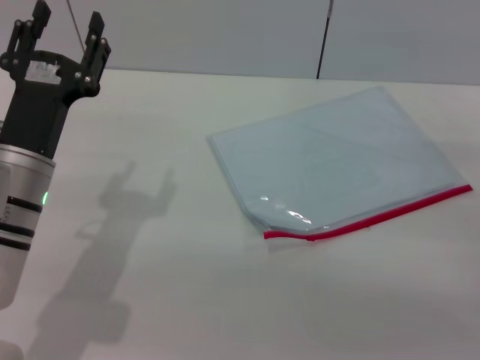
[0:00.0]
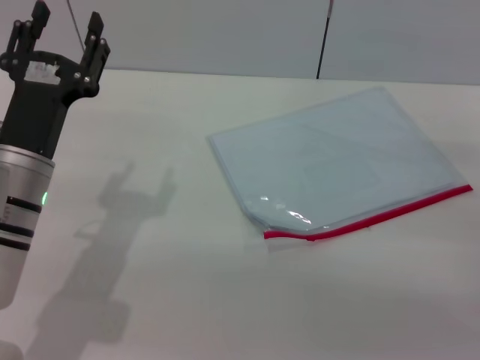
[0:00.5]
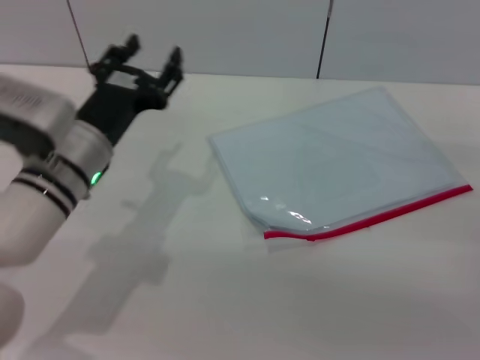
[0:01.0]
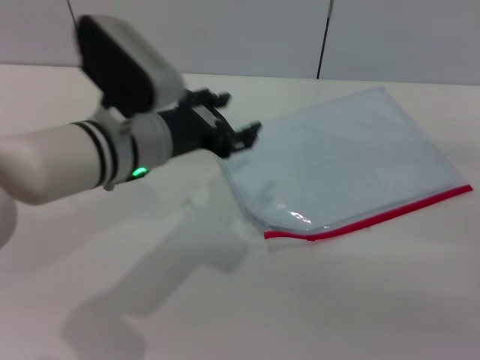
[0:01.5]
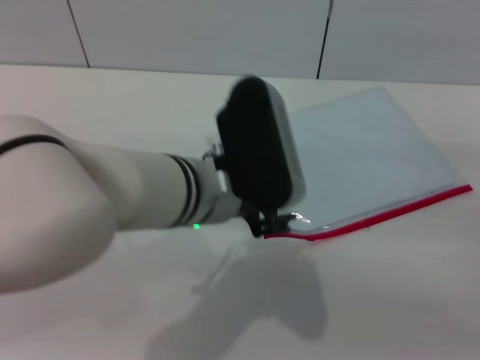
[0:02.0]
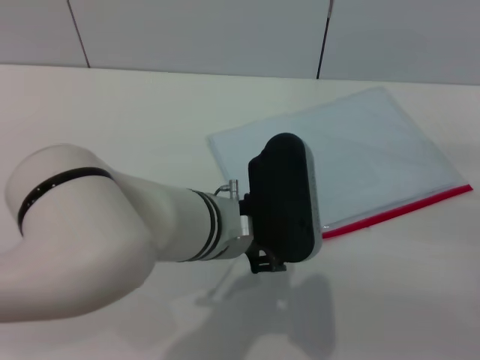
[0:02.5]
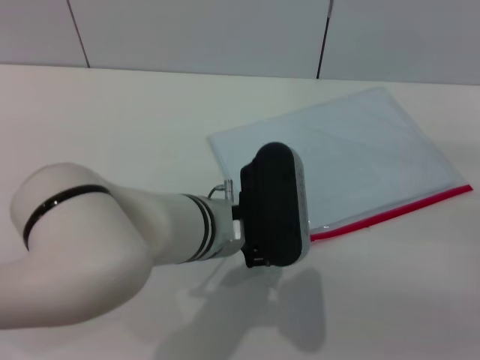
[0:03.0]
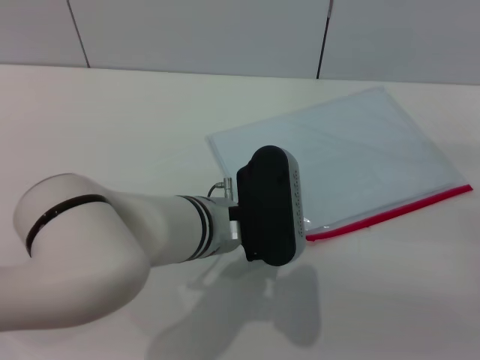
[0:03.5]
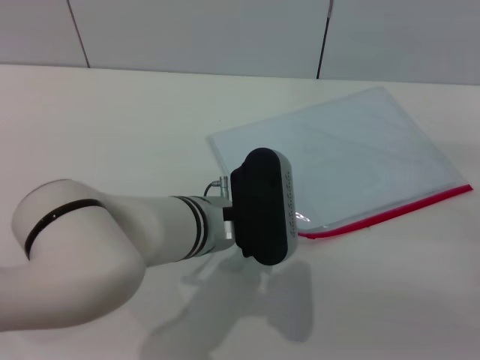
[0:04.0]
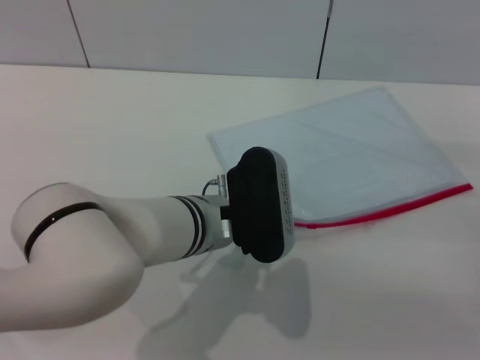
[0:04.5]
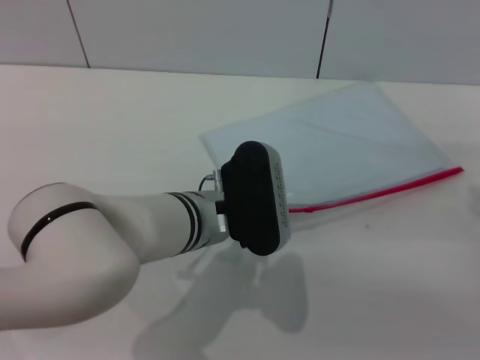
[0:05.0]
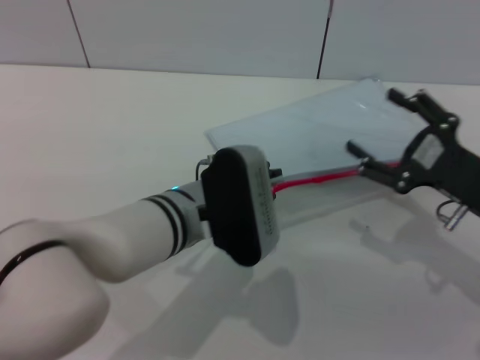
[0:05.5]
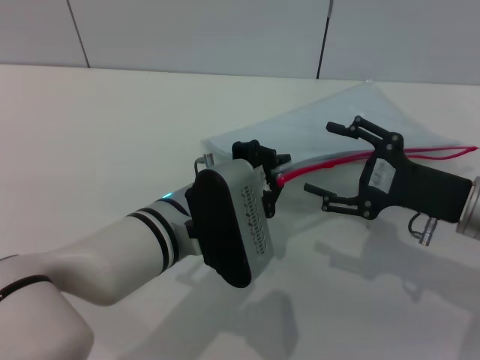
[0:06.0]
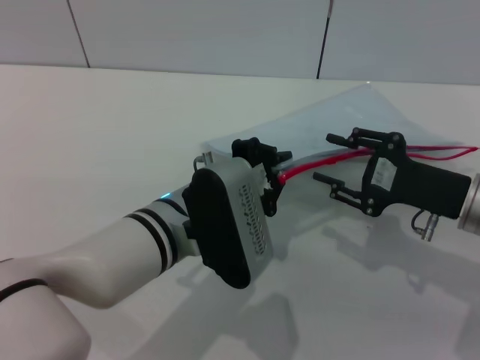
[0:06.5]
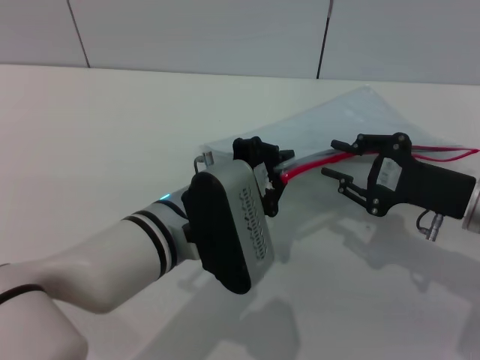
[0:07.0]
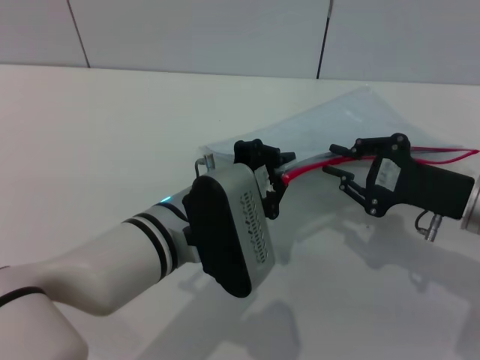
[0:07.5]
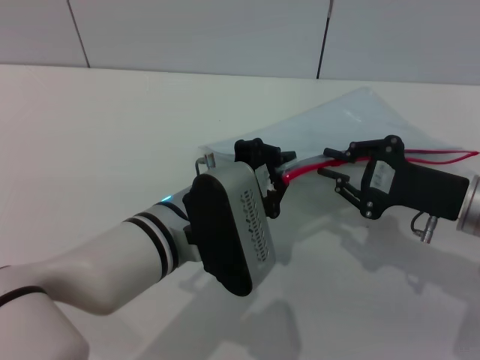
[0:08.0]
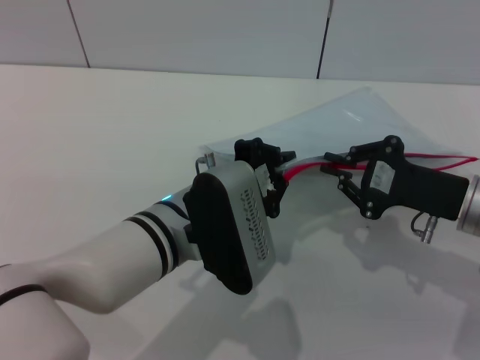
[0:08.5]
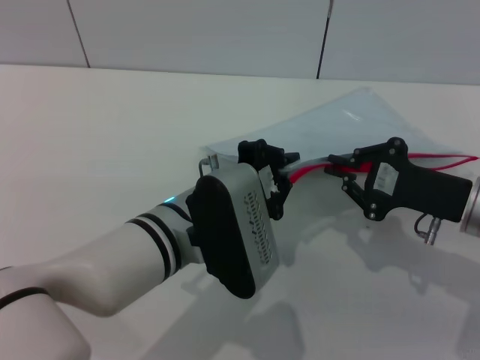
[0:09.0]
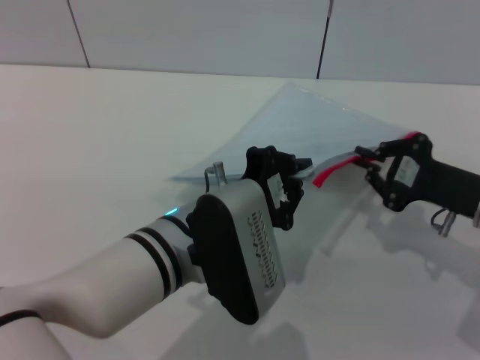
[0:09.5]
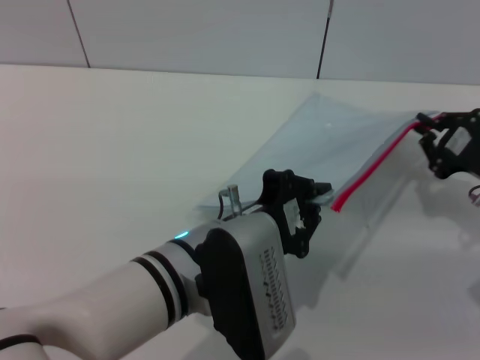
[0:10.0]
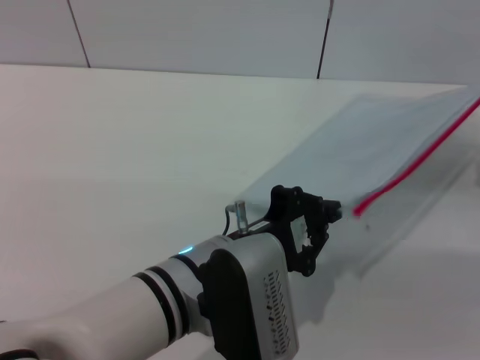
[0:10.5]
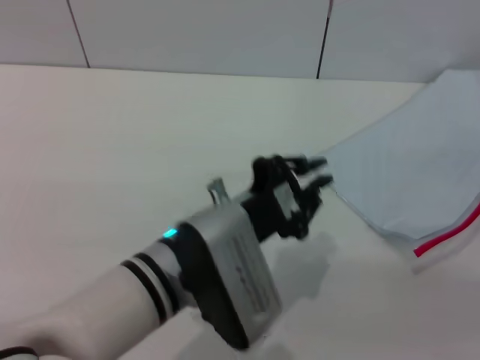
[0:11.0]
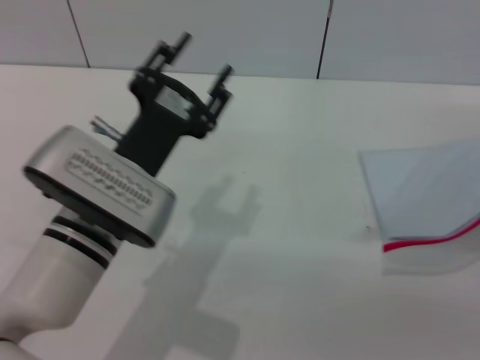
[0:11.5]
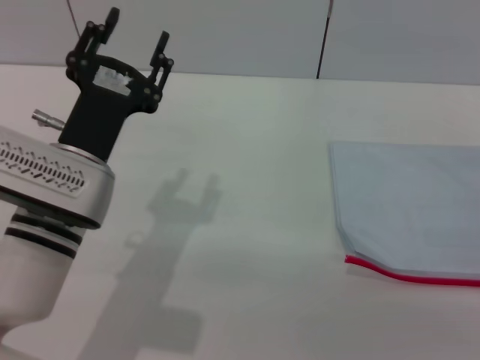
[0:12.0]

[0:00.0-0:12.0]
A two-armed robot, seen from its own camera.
Step, 0:00.0 to 0:05.0: Pick up the transparent plastic bag with the left gripper.
Step, 0:05.5 to 0:11.5: Pulling up the zipper on the transparent plastic bag with the right gripper to close it.
0:00.0 to 0:02.0: The left gripper heads to the right and upward, covering approximately 15 cm.
0:02.0 to 0:04.0: The left gripper goes about 5 cm downward.
0:04.0 to 0:06.0: The left gripper closes. The right gripper goes roughly 10 cm to the left.
0:06.0 to 0:08.0: The right gripper closes up.
0:08.0 to 0:10.0: The right gripper goes some 5 cm to the right.
0:10.0 to 0:12.0: The left gripper is displaced to the left by about 10 cm, and opens its fingers. Meanwhile the right gripper shifts some 10 cm backward, and opens.

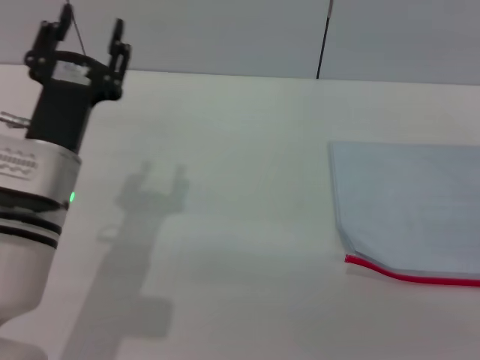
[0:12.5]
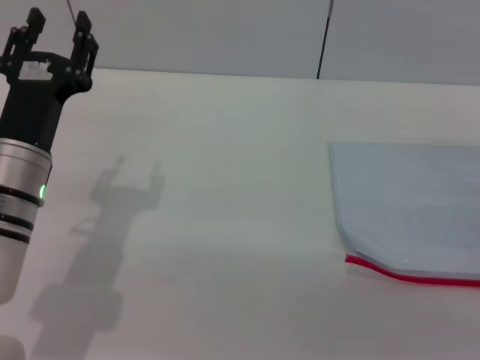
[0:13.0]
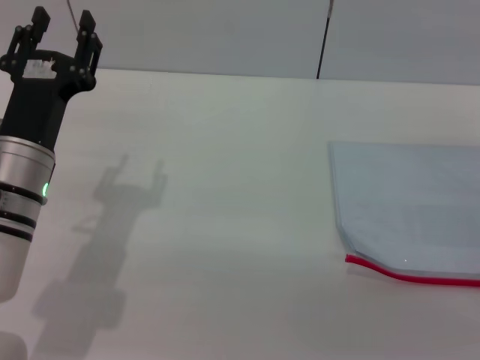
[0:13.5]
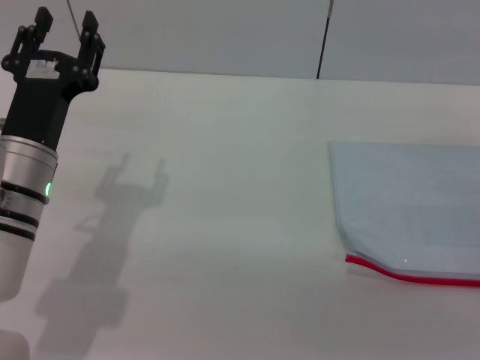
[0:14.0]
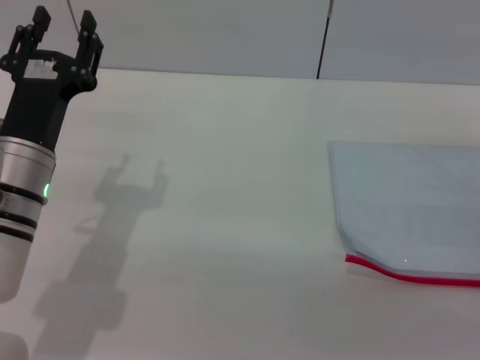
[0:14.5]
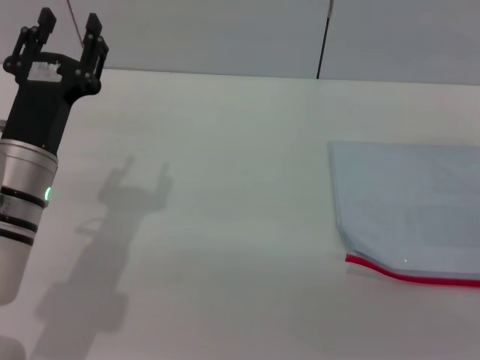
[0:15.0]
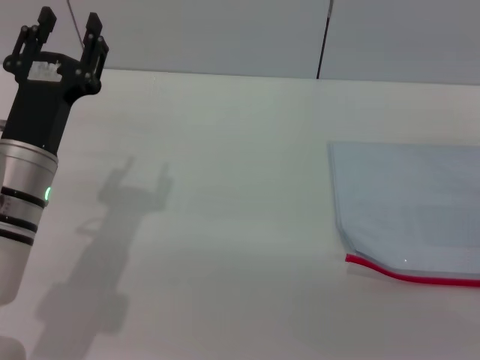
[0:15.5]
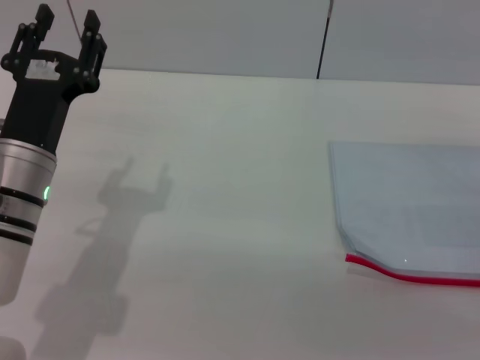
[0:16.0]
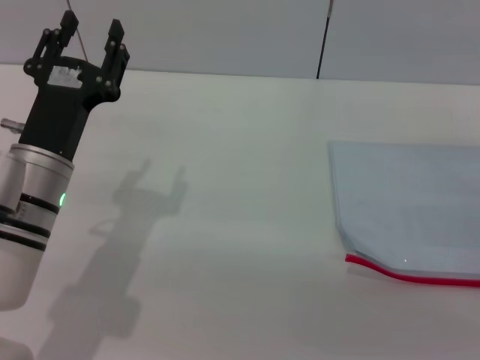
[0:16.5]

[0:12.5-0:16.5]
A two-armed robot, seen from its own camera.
Step, 0:12.5 to 0:13.5: Place the transparent plastic bag.
0:12.5 to 0:14.5: There are only small adjustments of the grippers.
0:14.5 to 0:16.5: Both grippers stay about where they are.

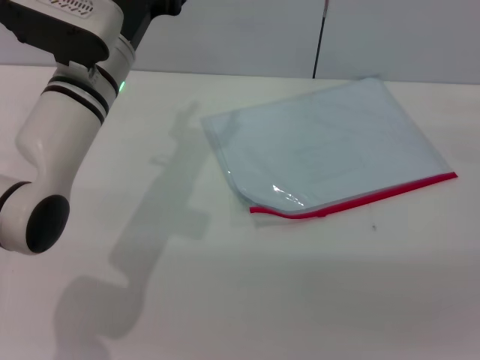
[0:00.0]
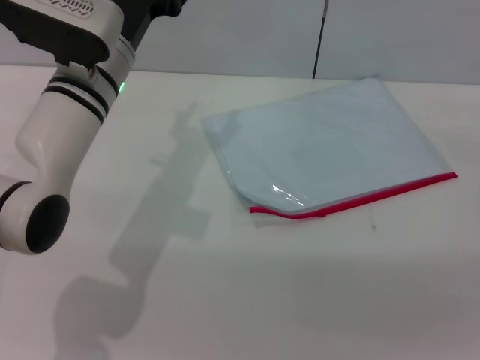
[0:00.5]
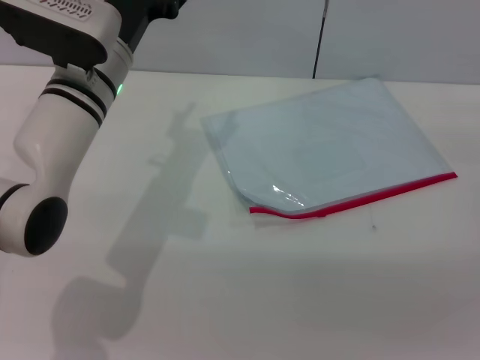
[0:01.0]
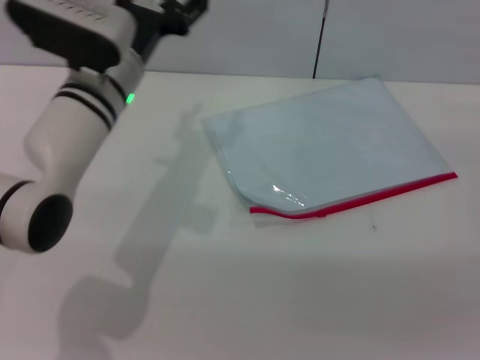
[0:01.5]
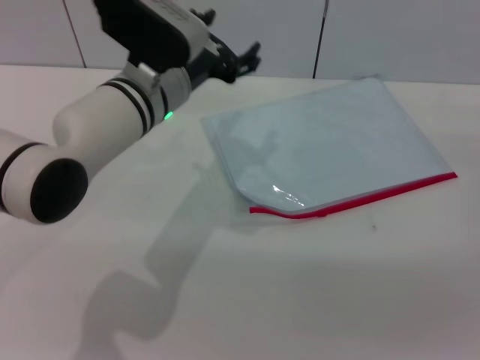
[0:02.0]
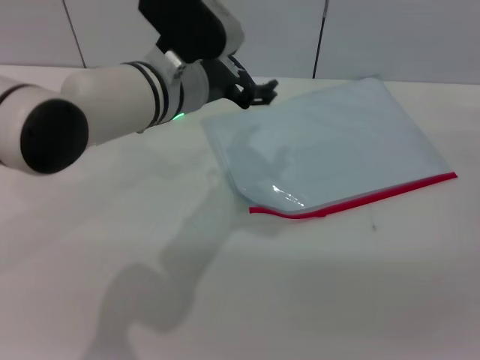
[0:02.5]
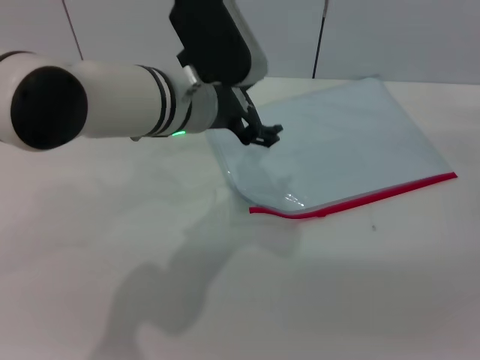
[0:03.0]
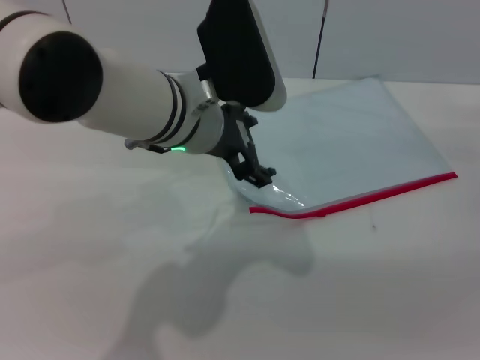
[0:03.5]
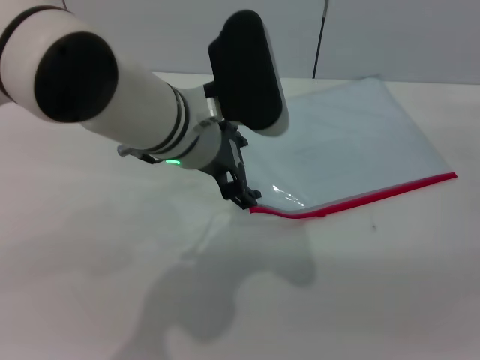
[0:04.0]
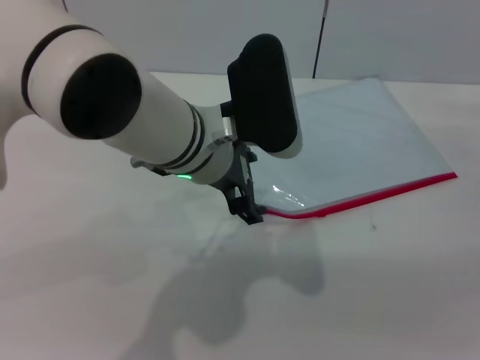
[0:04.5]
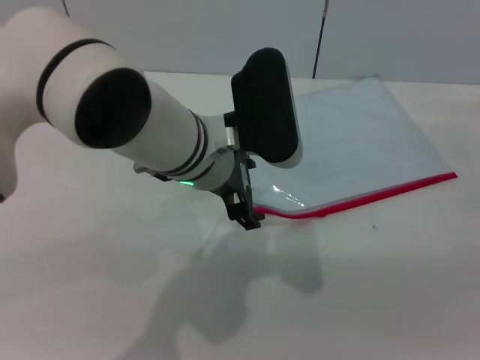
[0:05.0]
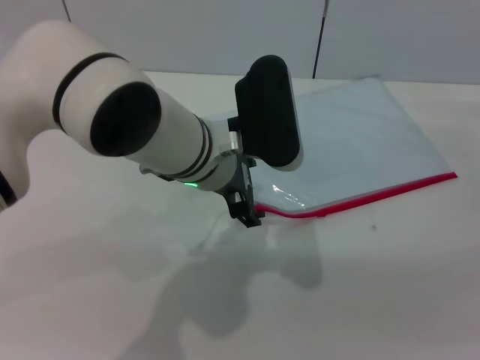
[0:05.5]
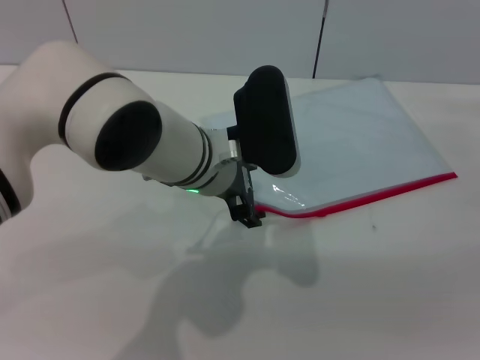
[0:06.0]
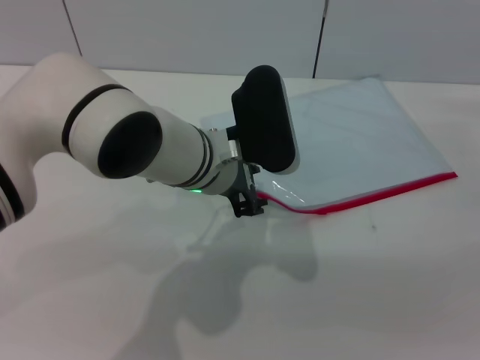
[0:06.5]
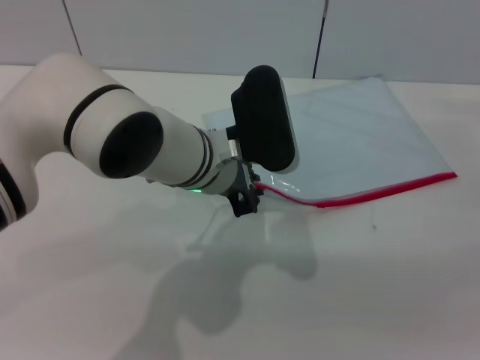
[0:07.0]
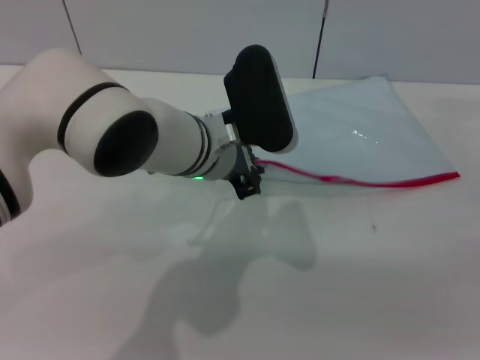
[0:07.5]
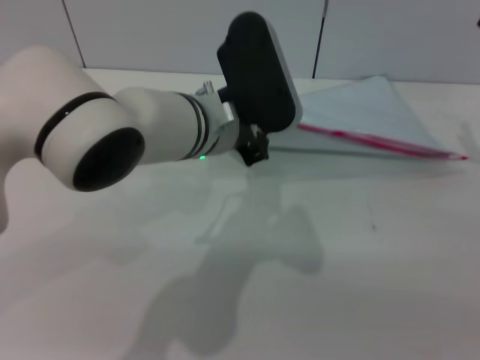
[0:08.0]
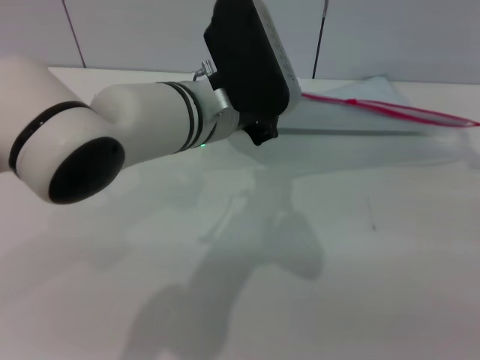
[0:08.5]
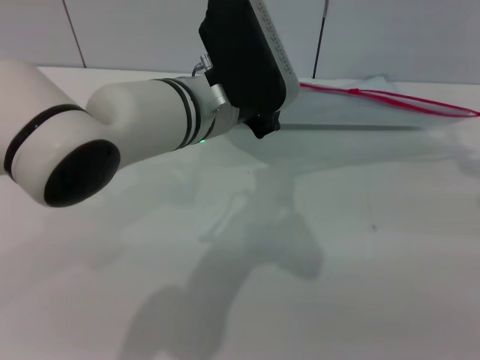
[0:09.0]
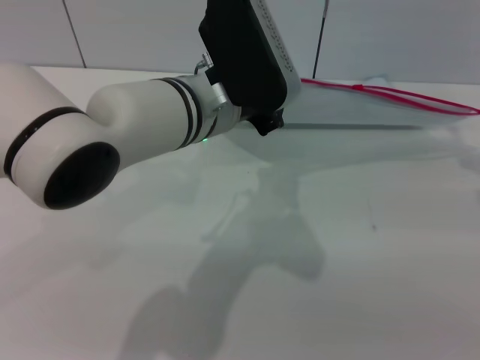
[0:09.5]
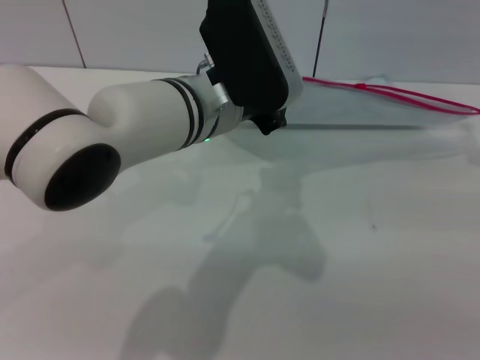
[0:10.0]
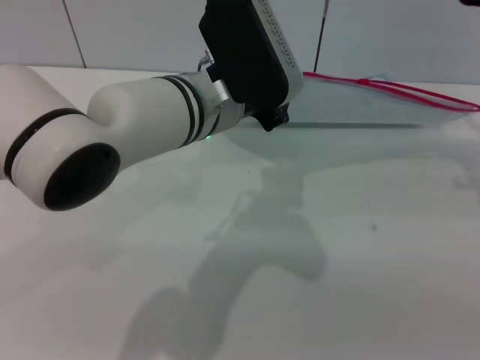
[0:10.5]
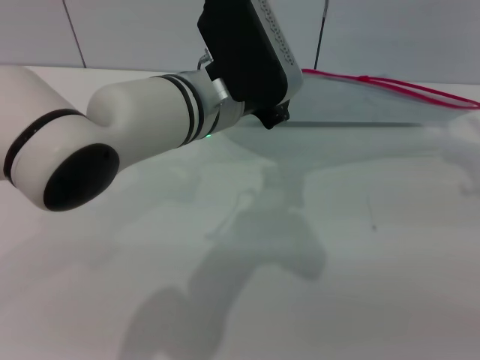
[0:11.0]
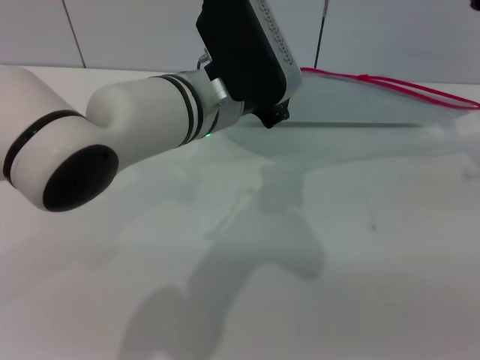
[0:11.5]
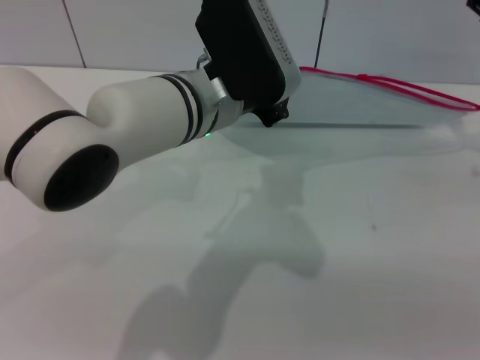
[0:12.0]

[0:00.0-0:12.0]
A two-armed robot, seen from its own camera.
Step, 0:00.0 to 0:08.5: Pick up the transparent plastic bag with the left gripper.
0:02.0 to 0:04.0: The left gripper shifts by roughly 5 cm.
0:04.0 to 0:06.0: The left gripper moves about 5 cm.
0:06.0 to 0:08.0: The right gripper shifts some 5 cm upward. Meanwhile the left gripper closes.
0:08.0 to 0:10.0: The right gripper heads upward, covering roughly 10 cm.
0:10.0 to 0:12.0: The right gripper ends up approximately 5 cm from where it was.
